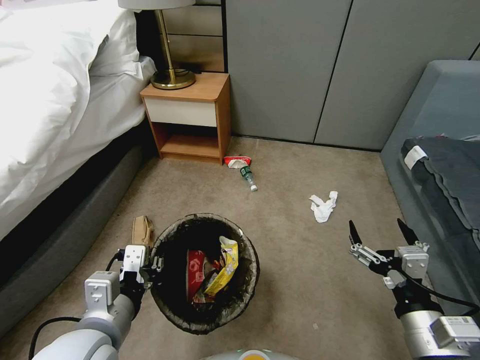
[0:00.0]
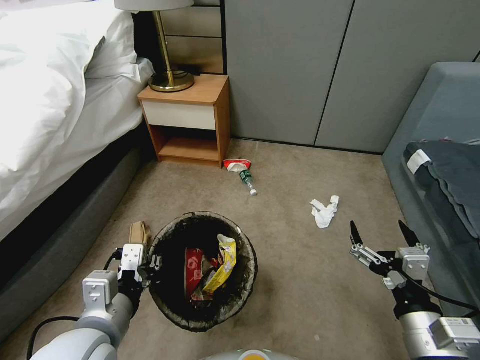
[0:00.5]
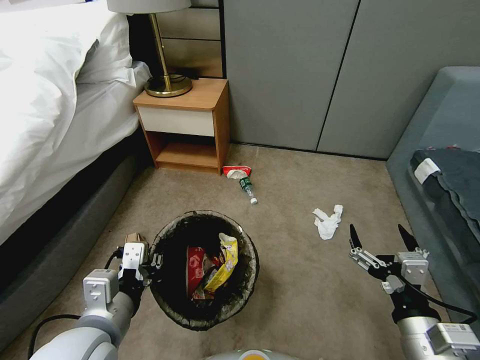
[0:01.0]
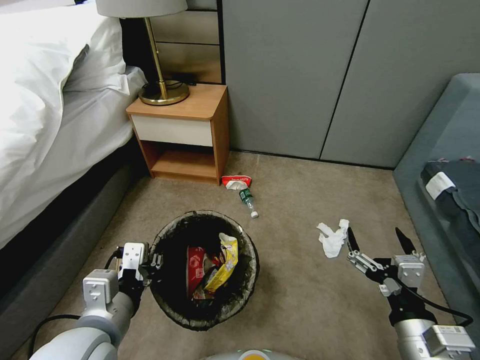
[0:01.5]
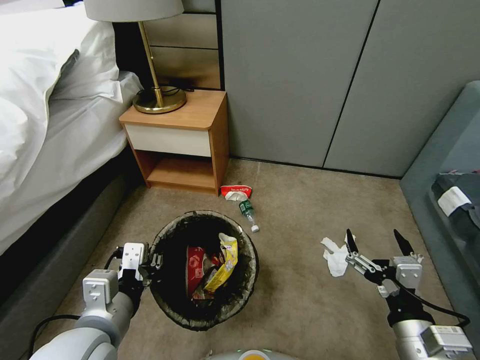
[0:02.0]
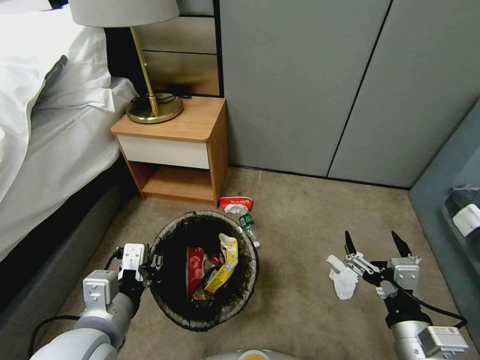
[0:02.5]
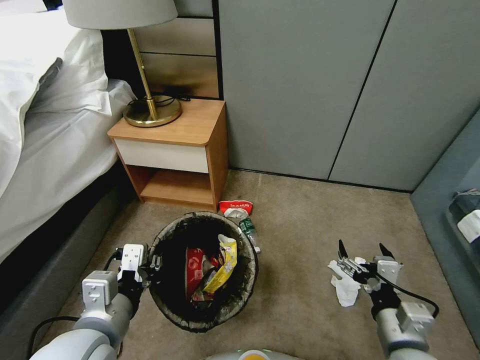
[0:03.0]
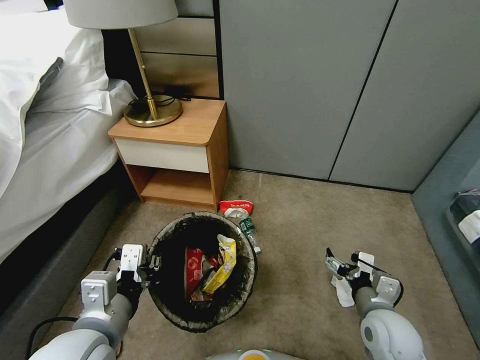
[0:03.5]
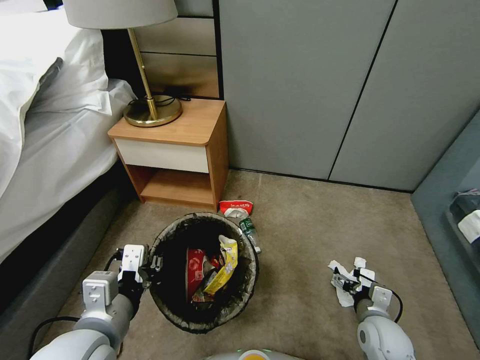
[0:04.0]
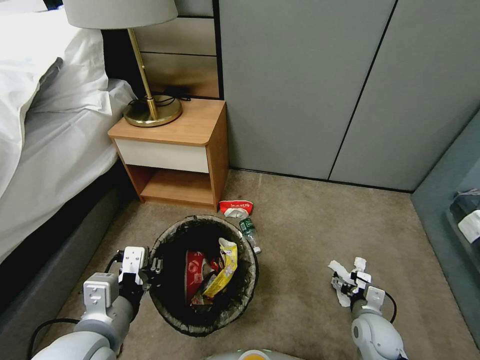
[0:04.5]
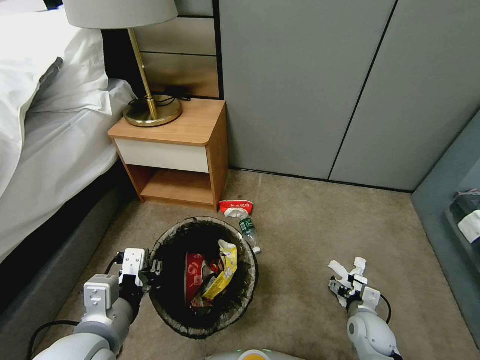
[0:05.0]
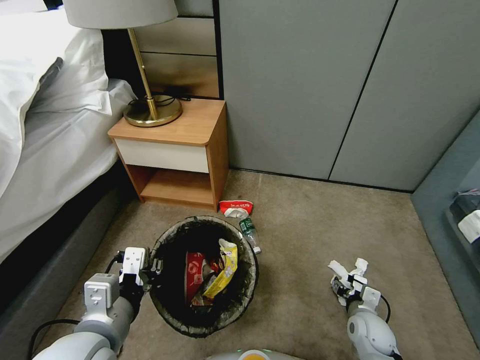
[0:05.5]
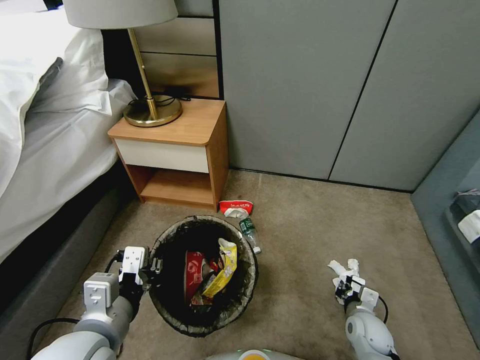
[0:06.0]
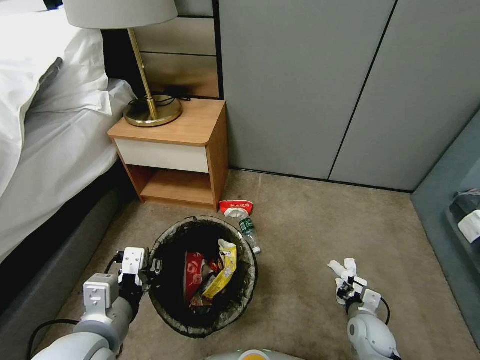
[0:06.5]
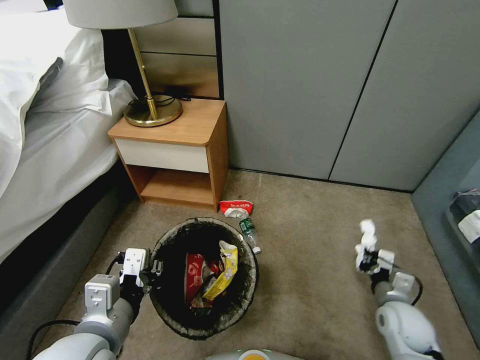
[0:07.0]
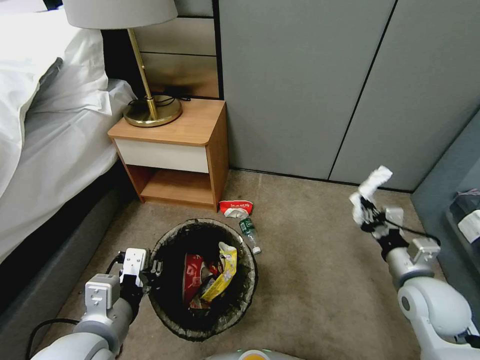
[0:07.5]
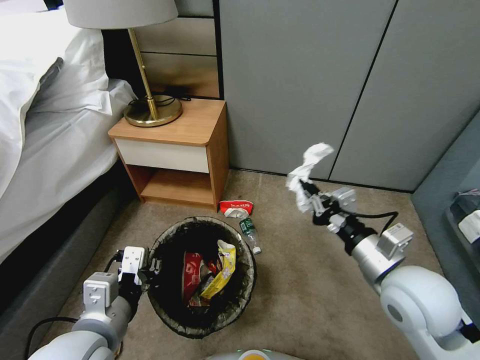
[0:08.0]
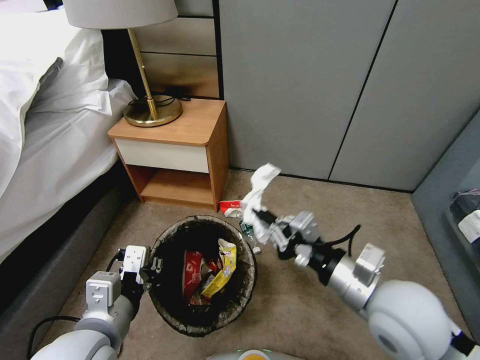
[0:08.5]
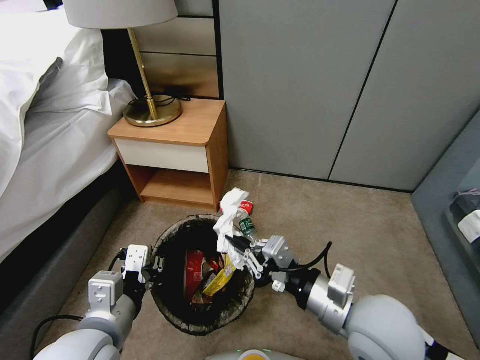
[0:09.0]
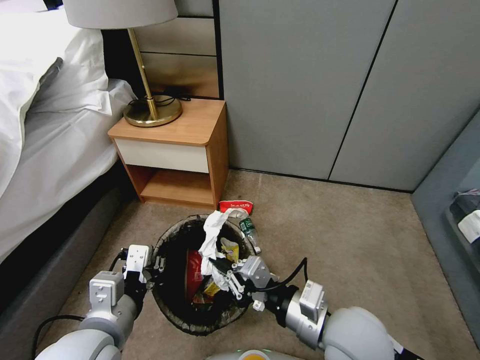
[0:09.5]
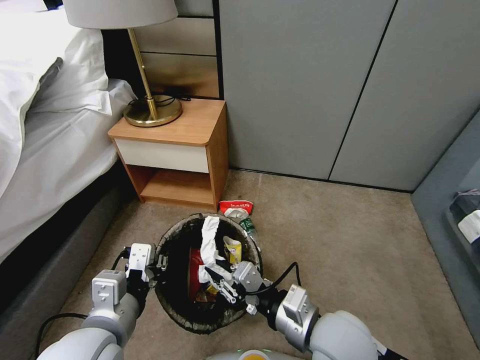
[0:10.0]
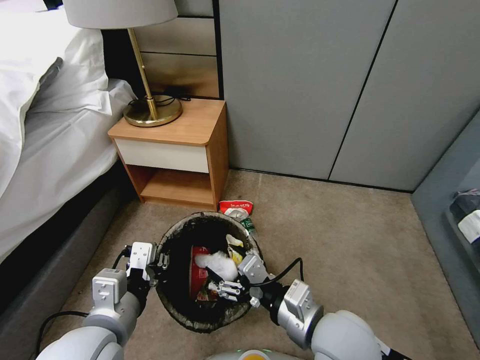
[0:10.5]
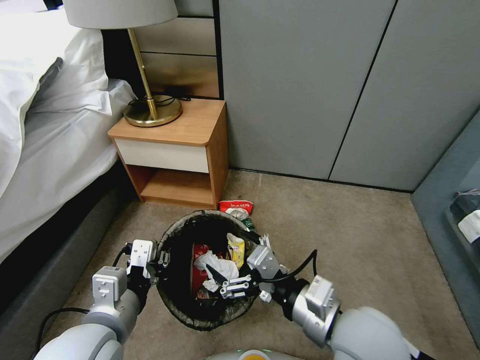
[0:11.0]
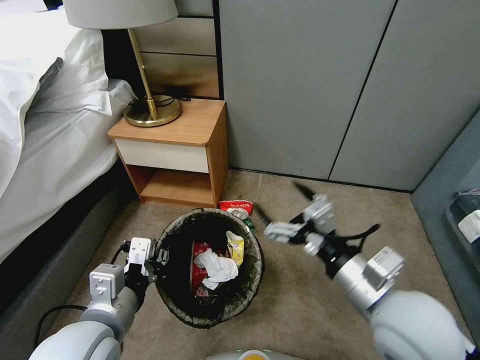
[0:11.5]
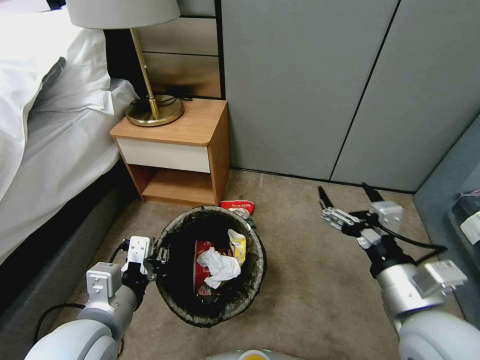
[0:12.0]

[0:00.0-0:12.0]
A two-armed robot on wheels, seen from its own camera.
Task of the whole recording: Pick up the trash bin, then pick up the garbage from the floor and place it into the trash bin.
0:02.0 to 0:04.0: The right gripper heads downward and forward, covering roughly 20 cm.
0:04.0 to 0:06.0: The right gripper moves downward, some 5 cm, and closes.
0:06.0 to 0:08.0: The right gripper shifts roughly 30 cm upward.
0:08.0 to 0:10.0: The right gripper moves to the left, backward and downward, about 15 cm.
0:10.0 to 0:12.0: The right gripper is displaced to the right and upward by approximately 15 cm, and opens.

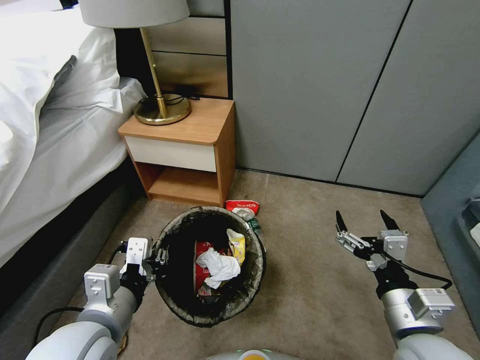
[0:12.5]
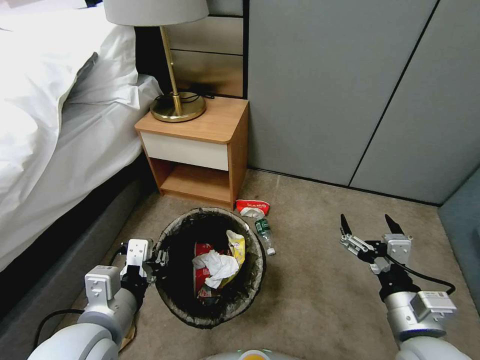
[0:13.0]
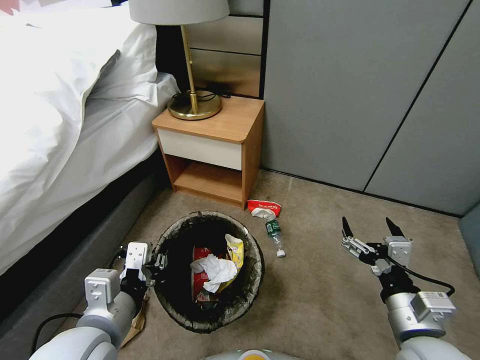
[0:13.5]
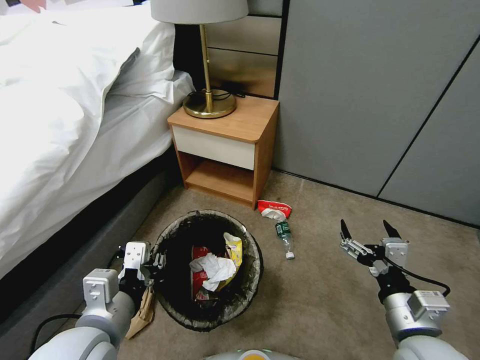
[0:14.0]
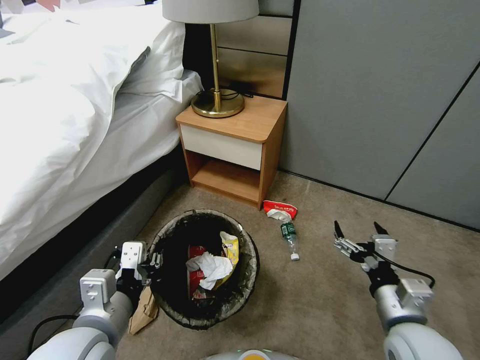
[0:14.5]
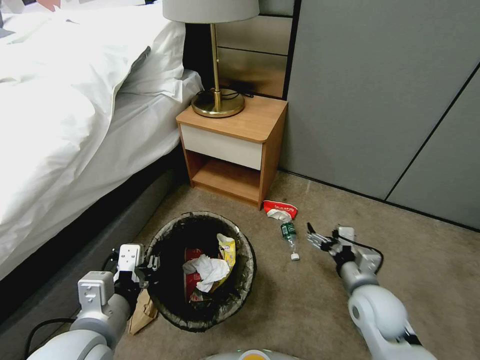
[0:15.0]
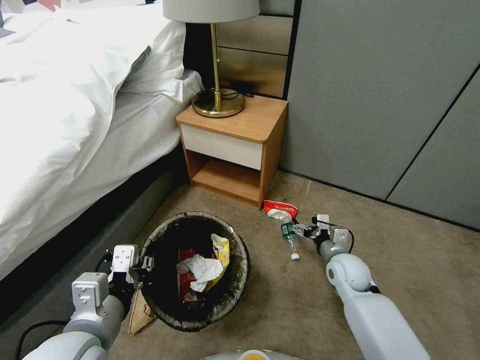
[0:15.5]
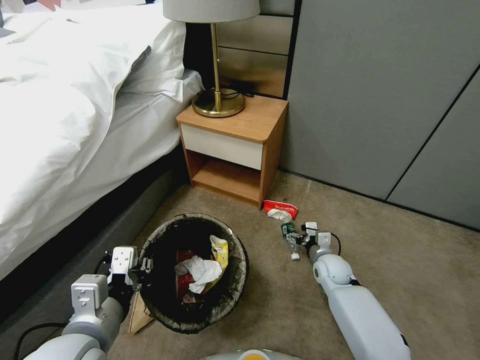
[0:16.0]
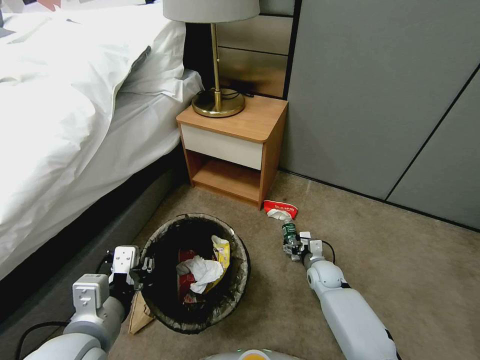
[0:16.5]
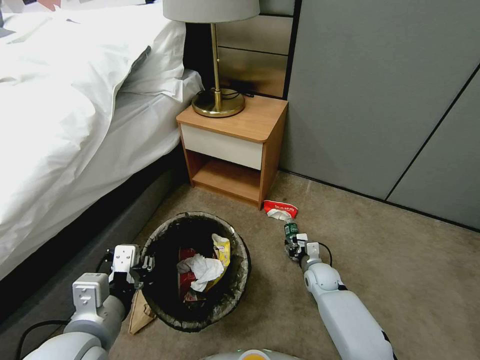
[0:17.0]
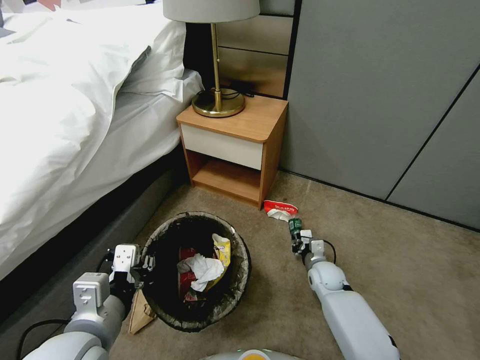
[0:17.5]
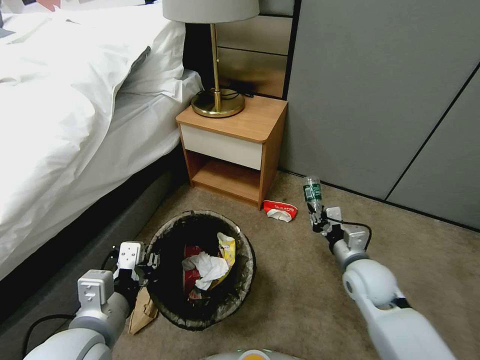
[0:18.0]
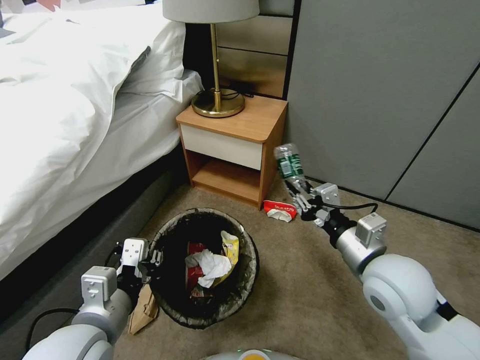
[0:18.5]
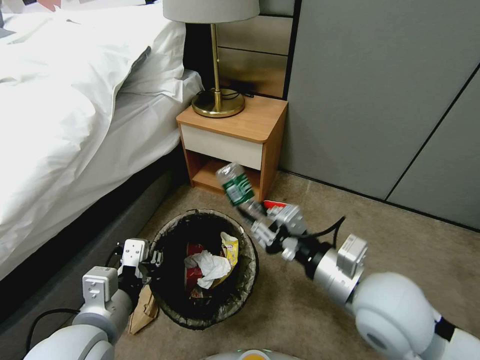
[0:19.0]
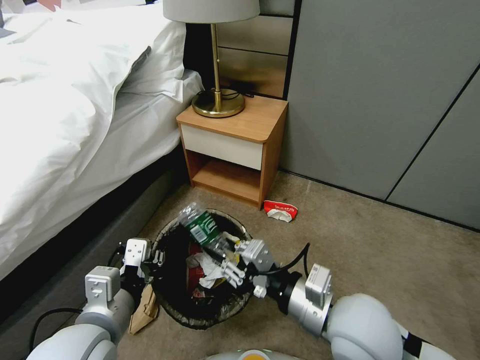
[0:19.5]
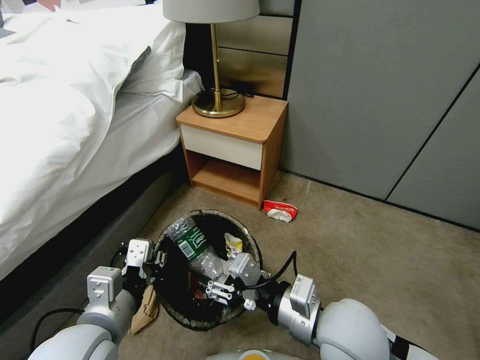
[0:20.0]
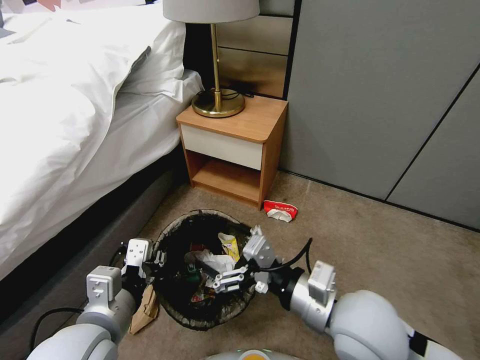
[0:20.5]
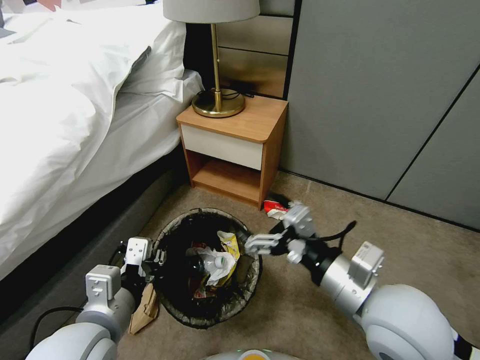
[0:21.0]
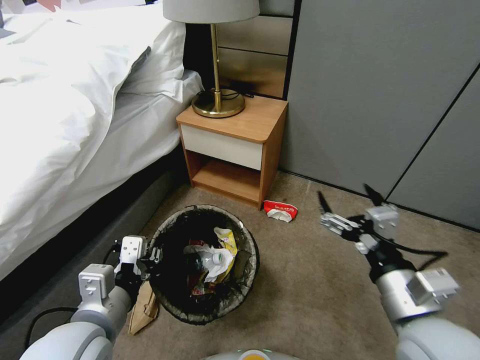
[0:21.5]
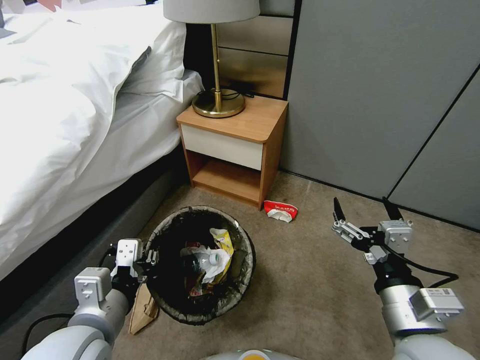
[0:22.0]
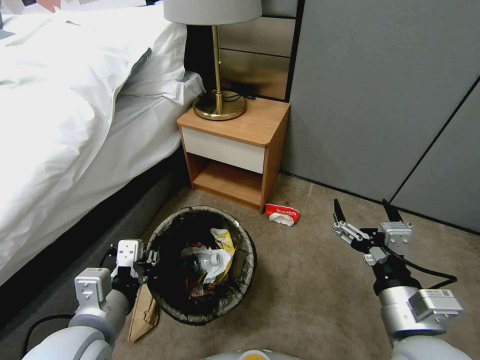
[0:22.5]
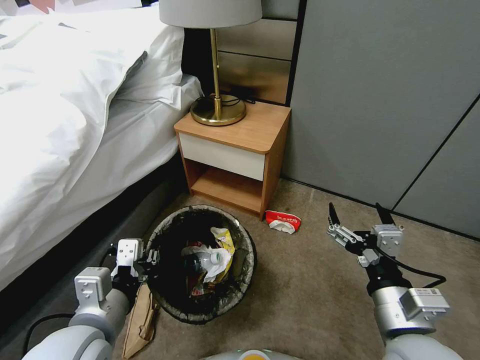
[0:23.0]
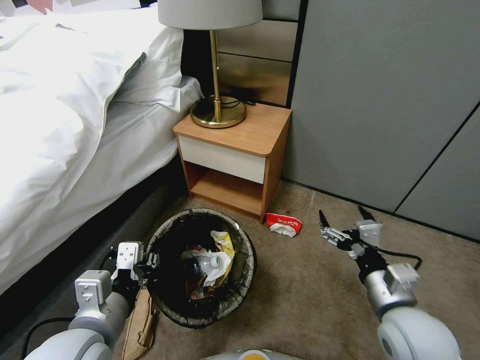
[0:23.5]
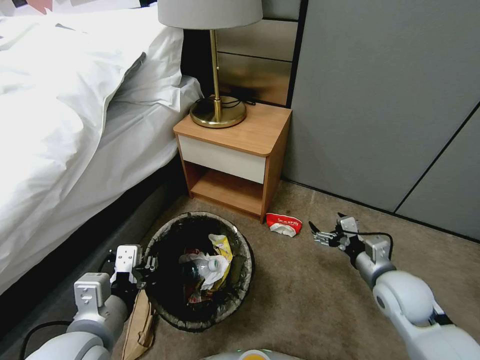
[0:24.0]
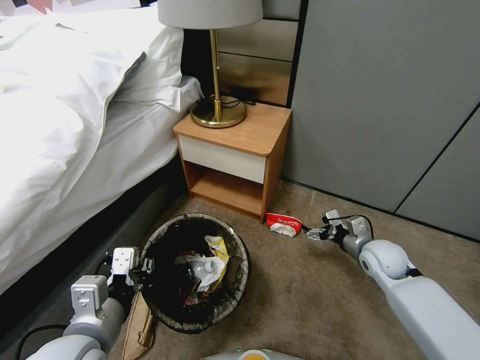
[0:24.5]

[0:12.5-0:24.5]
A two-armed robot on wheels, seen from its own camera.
Task of the whole recording: Pick up the trash bin, then pick up the garbage from the floor and place it into the trash bin.
0:14.5 to 0:16.5: The right gripper goes approximately 30 cm downward and forward.
0:16.5 to 0:18.5: The right gripper is displaced upward by approximately 30 cm, and closes.
0:18.5 to 0:20.5: The right gripper heads to the left and backward, covering approximately 10 cm, and opens.
0:20.5 to 0:22.5: The right gripper shifts about 10 cm to the right.
0:22.5 to 0:24.5: The right gripper is displaced forward, downward and to the right by some 30 cm.

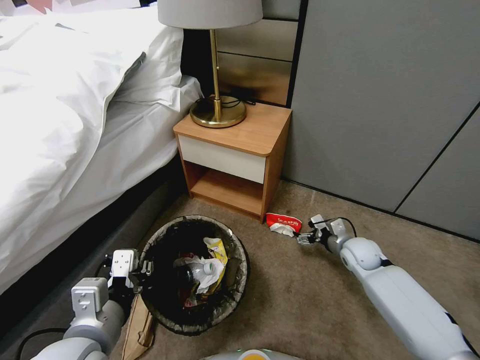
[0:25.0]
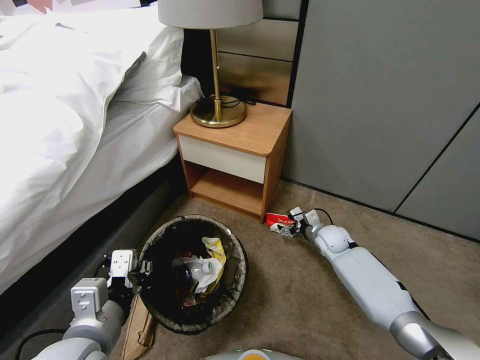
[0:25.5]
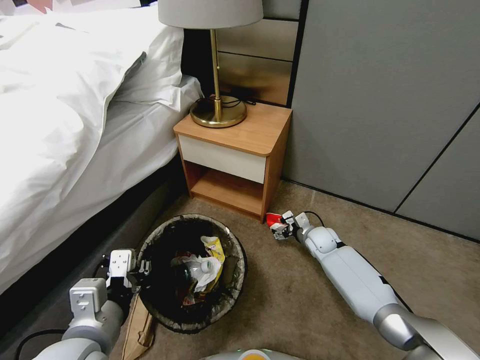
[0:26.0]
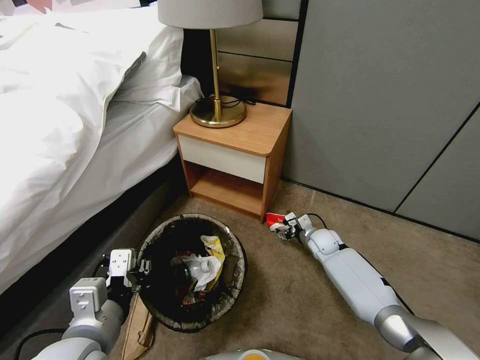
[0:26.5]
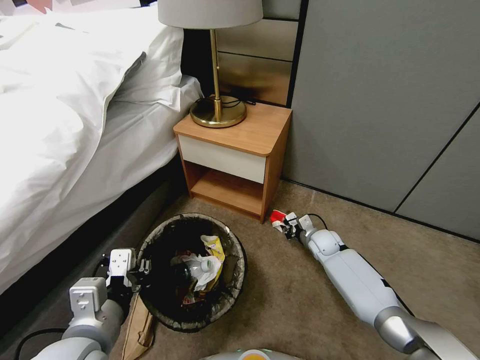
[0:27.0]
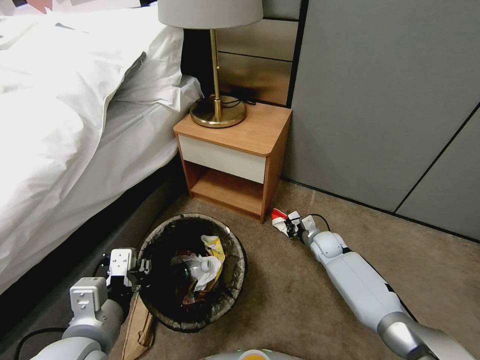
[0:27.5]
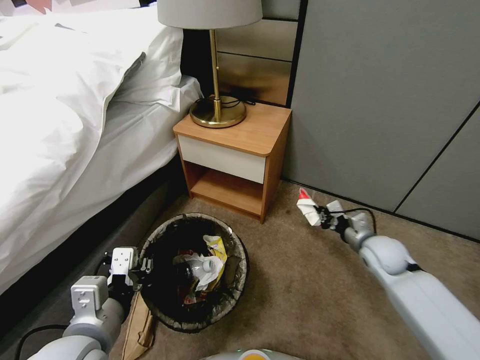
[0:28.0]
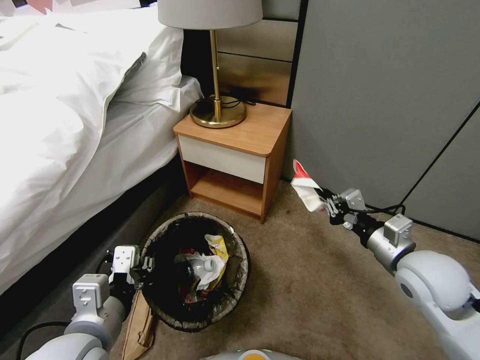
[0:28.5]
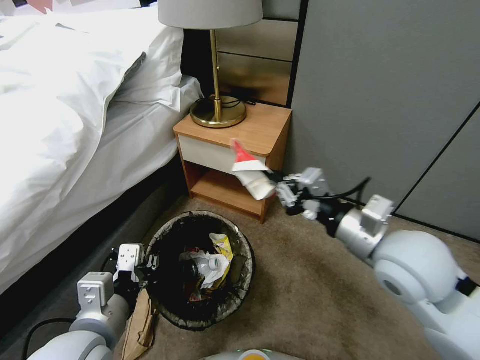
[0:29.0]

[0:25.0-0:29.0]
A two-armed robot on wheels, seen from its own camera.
Task of the whole recording: Pick up the trash bin, then pick up the garbage from the floor and place it into the trash bin.
0:25.0 to 0:27.0: The right gripper shifts roughly 10 cm to the left, downward and forward, and closes.
0:27.0 to 0:29.0: The right gripper is displaced upward and backward by some 40 cm.
